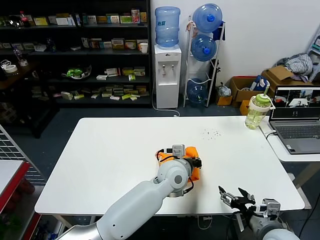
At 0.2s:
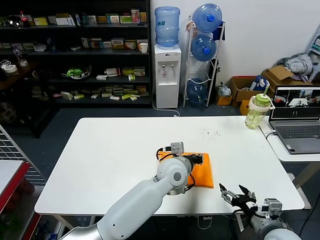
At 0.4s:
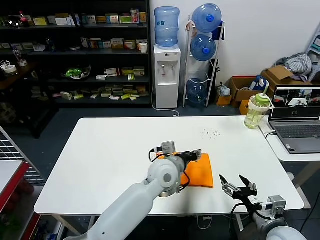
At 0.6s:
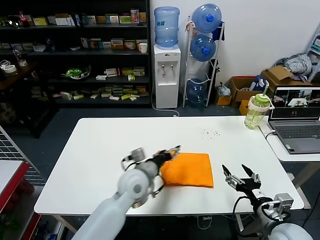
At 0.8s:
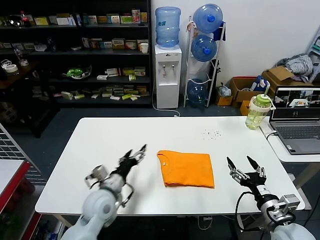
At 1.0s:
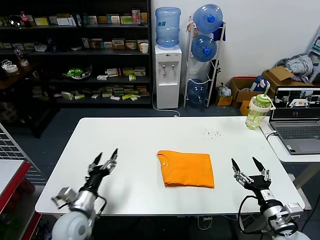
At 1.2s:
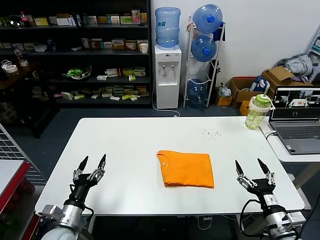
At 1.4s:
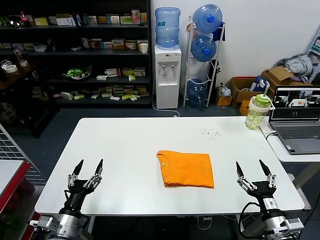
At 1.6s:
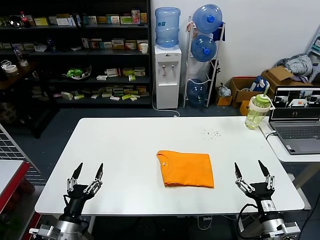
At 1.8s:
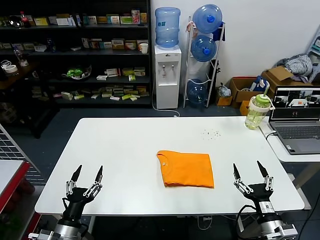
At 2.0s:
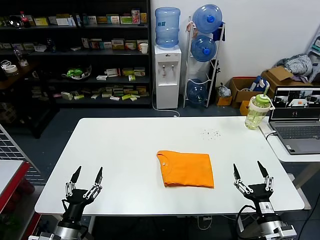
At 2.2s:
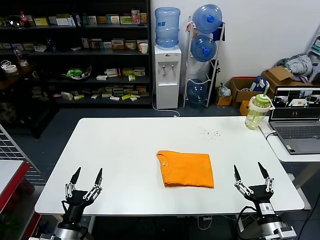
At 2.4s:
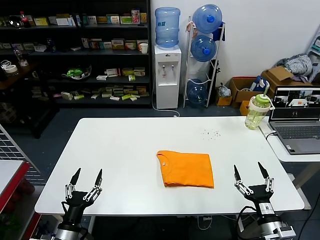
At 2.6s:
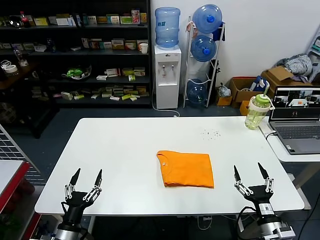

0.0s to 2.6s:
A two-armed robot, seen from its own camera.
Task of the whole recording: fold and organize the clothes.
0.0s to 1.2s: The left gripper shifts approximately 35 cm to the left and backward, and opens its fingers.
1.2s to 2.6s: The left gripper shifts approximately 10 cm backward.

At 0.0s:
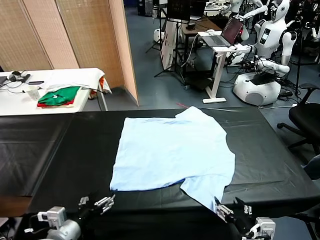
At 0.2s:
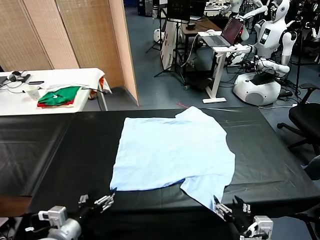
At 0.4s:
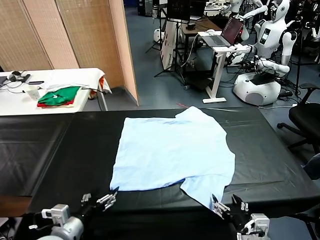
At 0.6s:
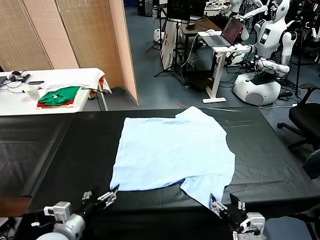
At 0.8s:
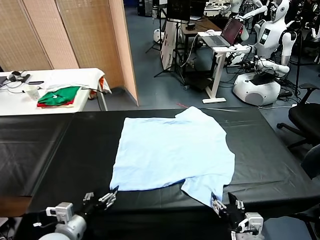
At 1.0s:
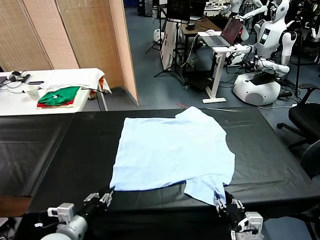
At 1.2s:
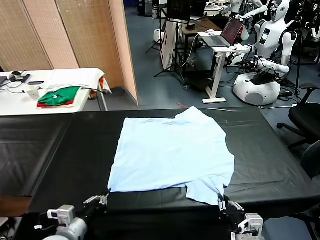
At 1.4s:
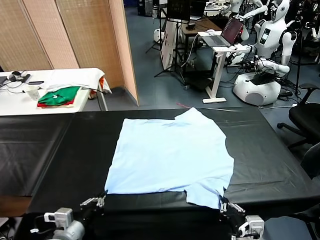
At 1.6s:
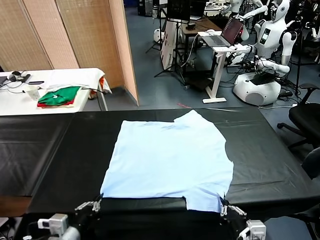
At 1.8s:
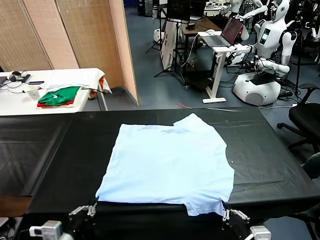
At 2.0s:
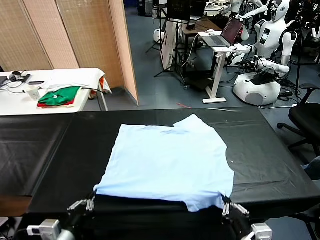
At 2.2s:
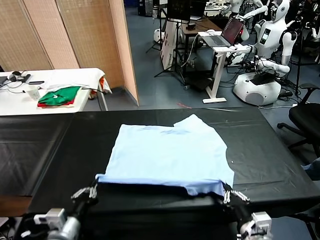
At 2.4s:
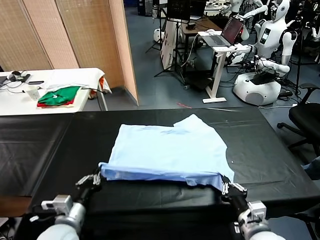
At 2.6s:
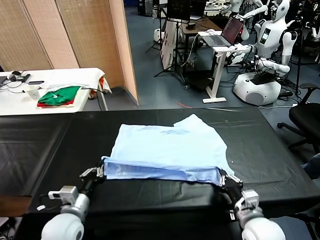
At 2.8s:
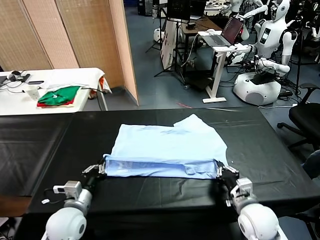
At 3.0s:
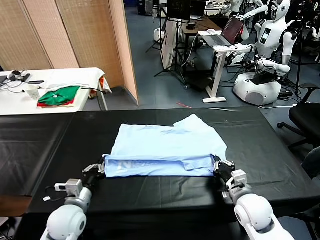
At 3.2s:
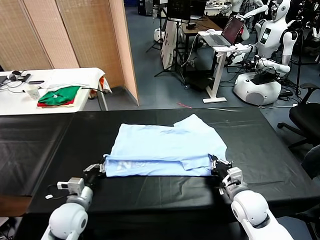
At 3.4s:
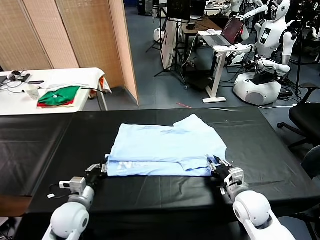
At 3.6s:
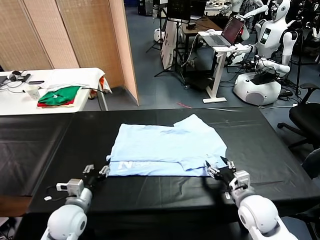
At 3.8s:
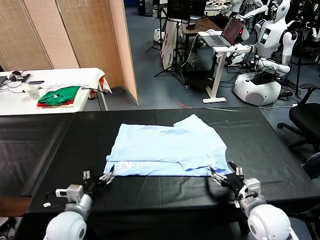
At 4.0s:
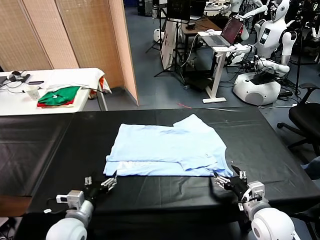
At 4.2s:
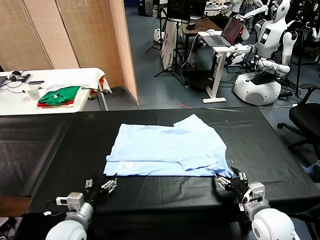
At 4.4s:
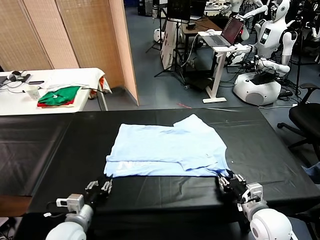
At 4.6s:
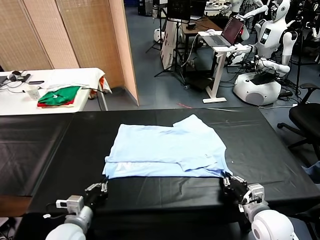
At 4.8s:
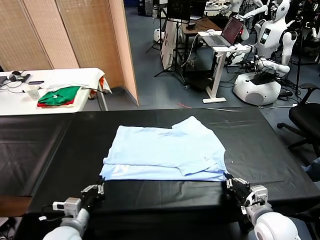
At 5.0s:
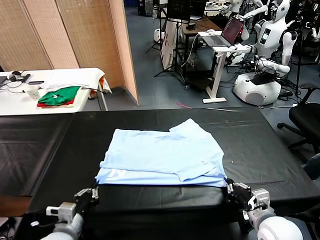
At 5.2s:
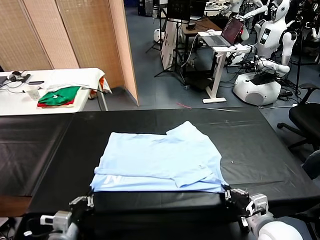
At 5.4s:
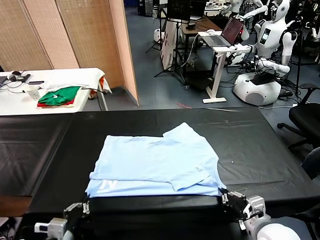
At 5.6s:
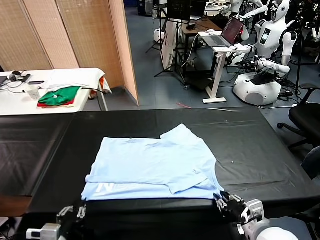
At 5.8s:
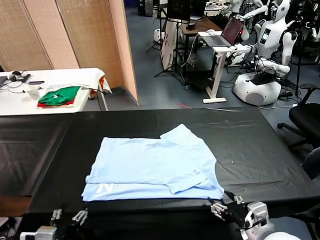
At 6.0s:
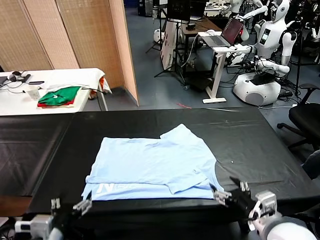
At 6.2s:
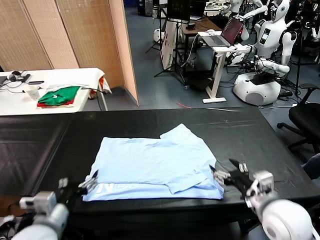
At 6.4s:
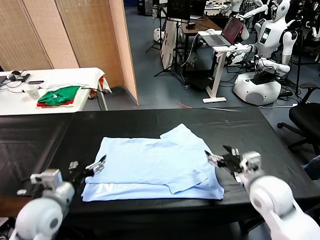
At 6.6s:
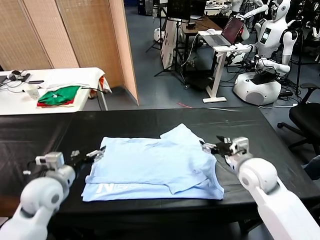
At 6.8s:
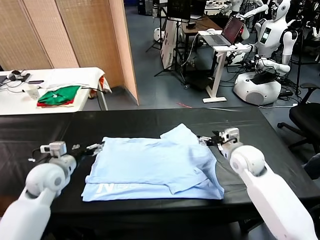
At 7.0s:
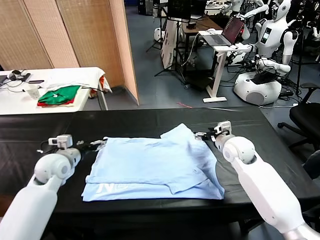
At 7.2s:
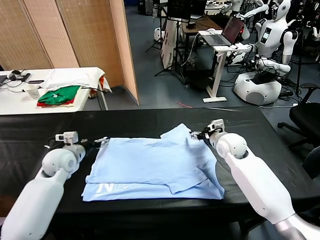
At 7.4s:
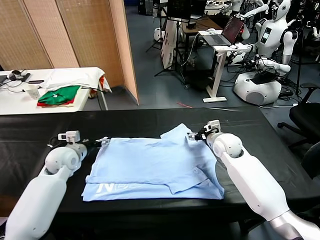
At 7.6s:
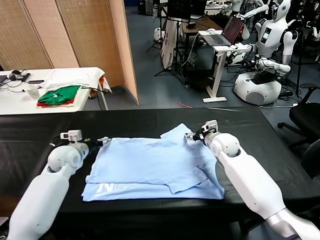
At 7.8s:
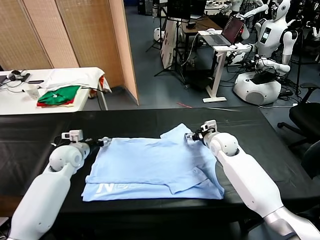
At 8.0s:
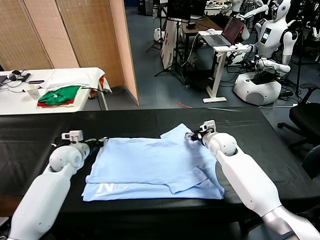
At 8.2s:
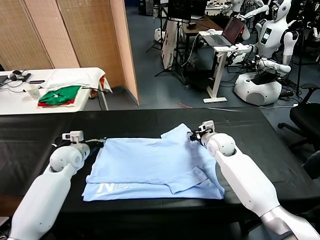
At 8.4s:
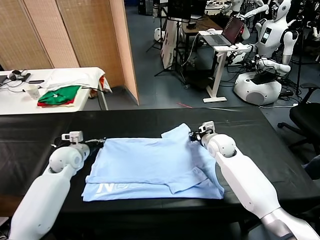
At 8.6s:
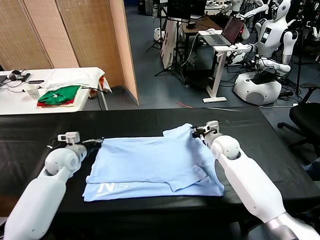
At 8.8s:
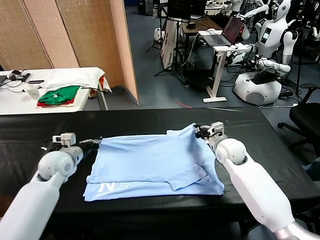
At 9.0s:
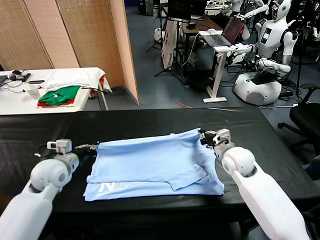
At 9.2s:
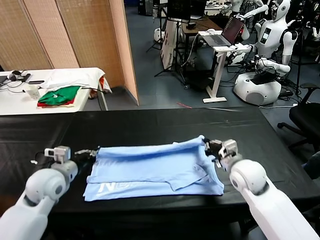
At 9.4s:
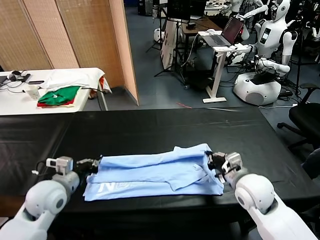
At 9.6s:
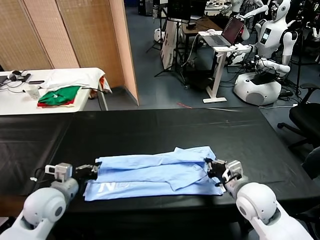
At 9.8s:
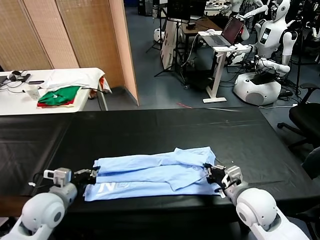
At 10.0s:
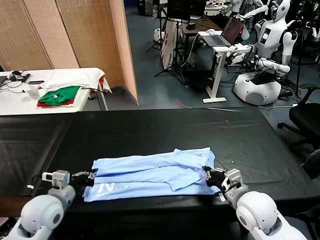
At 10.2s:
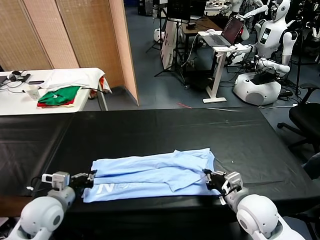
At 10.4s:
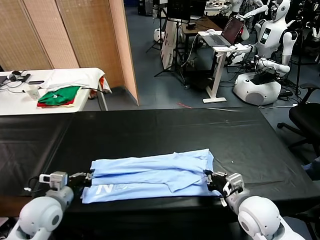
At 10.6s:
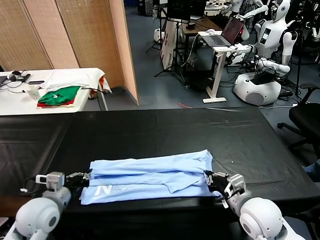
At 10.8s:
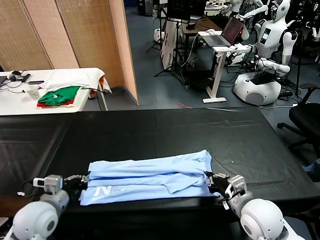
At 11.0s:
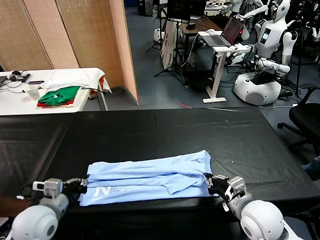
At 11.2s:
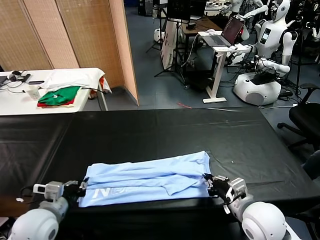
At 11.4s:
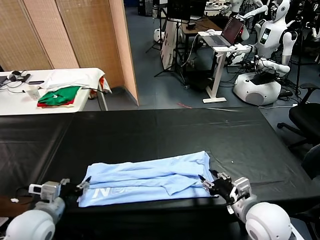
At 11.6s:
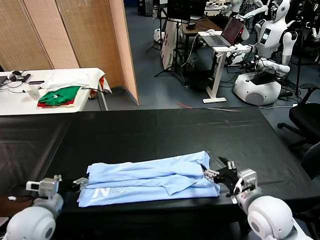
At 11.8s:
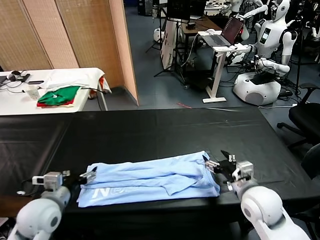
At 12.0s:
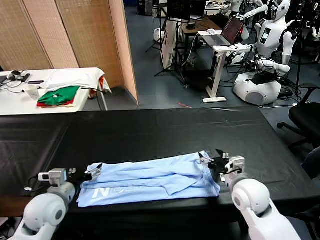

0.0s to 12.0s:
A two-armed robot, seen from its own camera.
Task of the whole recording: fold and organize the clothes.
Step, 0.0s to 1.0s: use both grippers simultaneously to clamp the lower edge of the clothing fabric.
Step, 1.4s to 3.4s: use both grippers to drag the lower edge of the fabric forward and fold it over the upper edge.
Step, 3.6s to 5.6s: Drag the clothes downward with both gripper.
Step, 5.8s to 8.2s: use both grippers simultaneously to clamp the upper edge of the clothing fabric.
Step, 8.4s to 11.4s: use both grippers to drag the upper edge of the fabric backward and fold it over the lower edge.
1.6s to 3.0s: Both grippers move forward, roughly 15 cm.
3.0s to 4.4s: Both grippers move backward, approximately 5 cm. The left gripper opens and closes again. The right gripper opens, then closes once more.
4.4s to 6.0s: Both grippers travel together upward, about 10 cm. The right gripper opens. The left gripper opens its fingers.
6.0s to 7.6s: The grippers both shift forward by about 25 cm.
7.6s to 9.0s: Both grippers move backward, some 15 cm. The left gripper closes, while the right gripper closes up.
9.0s to 10.4s: Both grippers travel together backward, some 10 cm.
10.4s to 12.0s: The left gripper opens its fingers, while the right gripper goes some 10 cm forward, and opens its fingers.

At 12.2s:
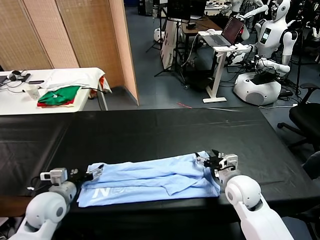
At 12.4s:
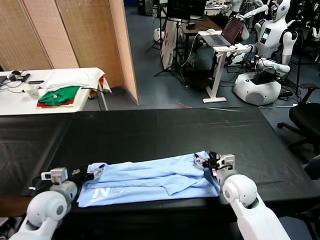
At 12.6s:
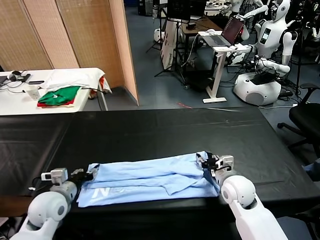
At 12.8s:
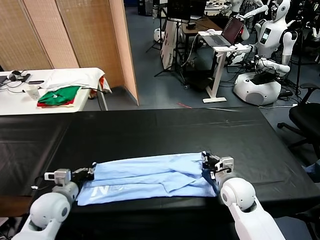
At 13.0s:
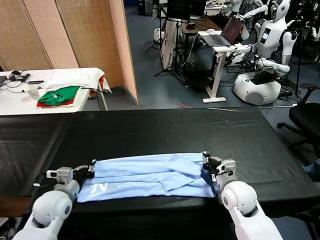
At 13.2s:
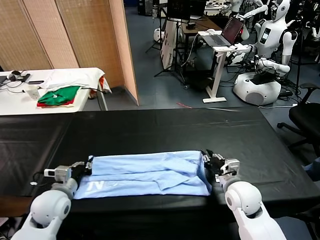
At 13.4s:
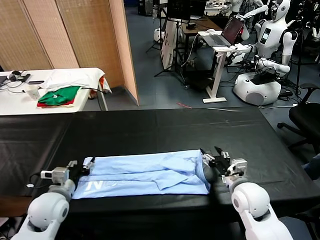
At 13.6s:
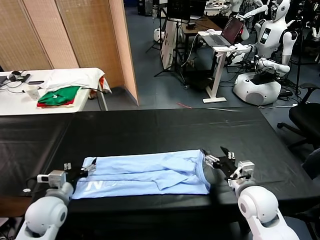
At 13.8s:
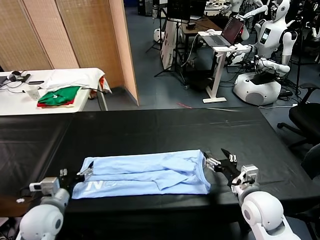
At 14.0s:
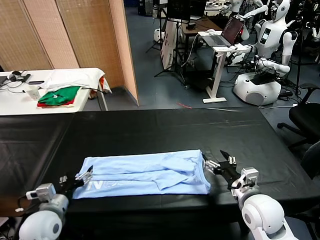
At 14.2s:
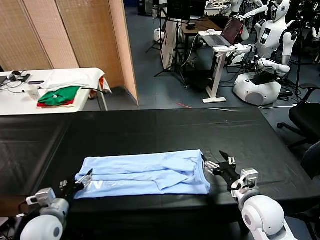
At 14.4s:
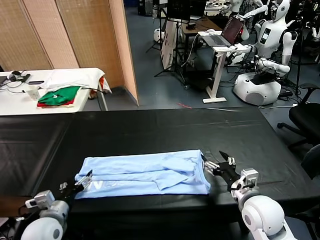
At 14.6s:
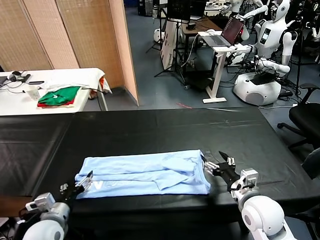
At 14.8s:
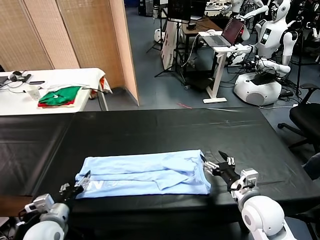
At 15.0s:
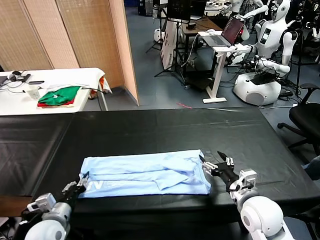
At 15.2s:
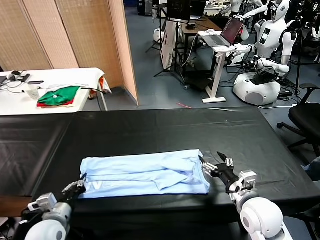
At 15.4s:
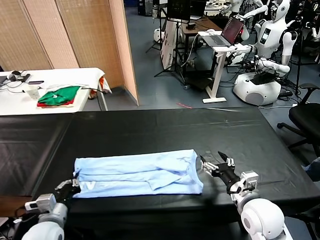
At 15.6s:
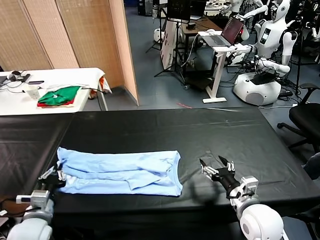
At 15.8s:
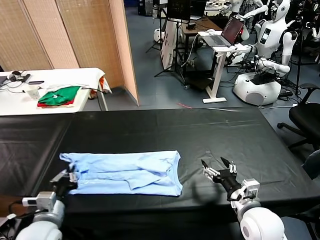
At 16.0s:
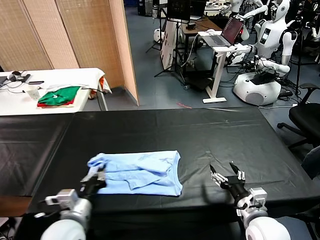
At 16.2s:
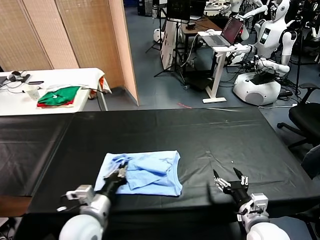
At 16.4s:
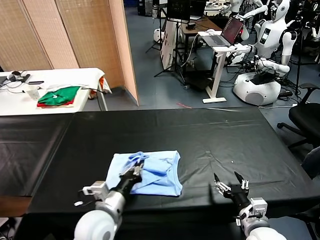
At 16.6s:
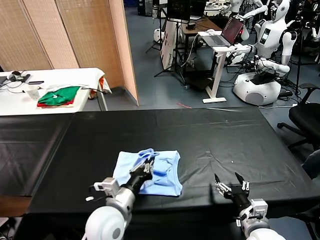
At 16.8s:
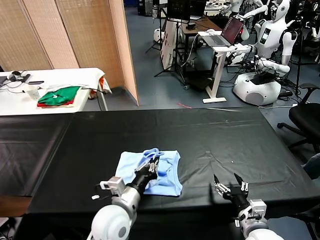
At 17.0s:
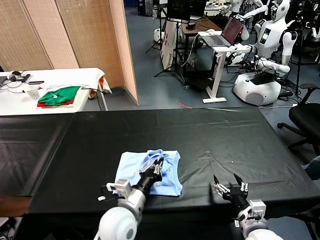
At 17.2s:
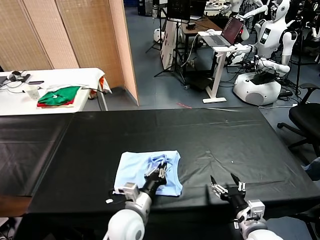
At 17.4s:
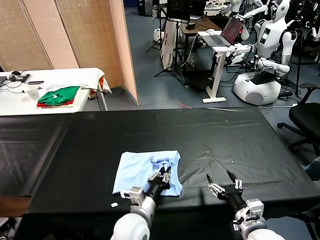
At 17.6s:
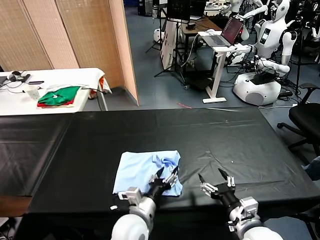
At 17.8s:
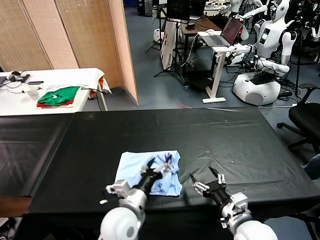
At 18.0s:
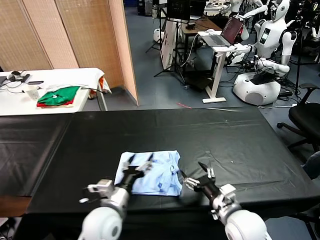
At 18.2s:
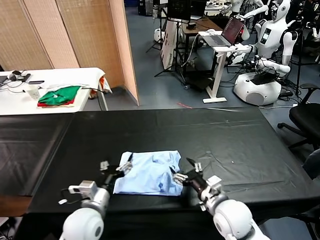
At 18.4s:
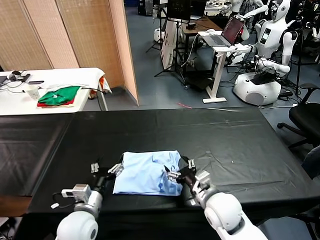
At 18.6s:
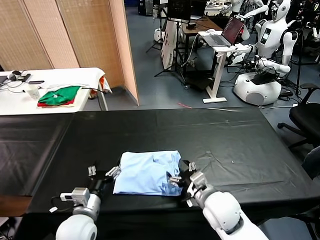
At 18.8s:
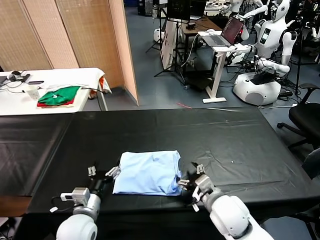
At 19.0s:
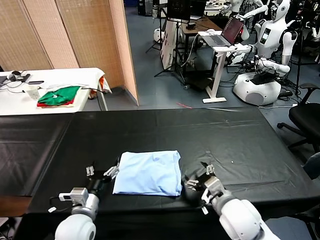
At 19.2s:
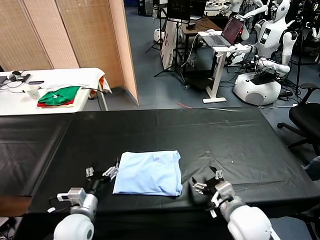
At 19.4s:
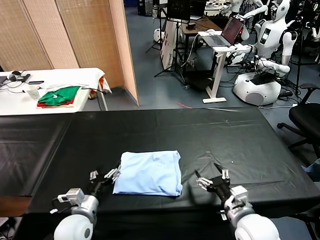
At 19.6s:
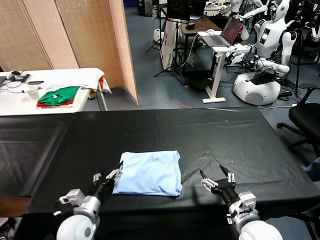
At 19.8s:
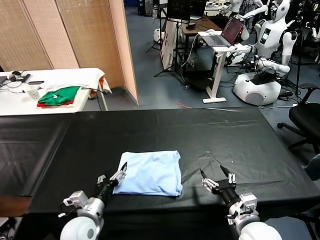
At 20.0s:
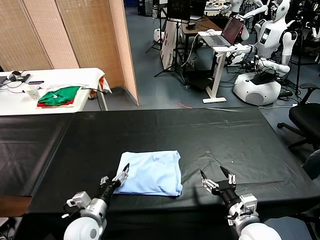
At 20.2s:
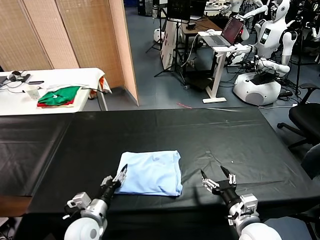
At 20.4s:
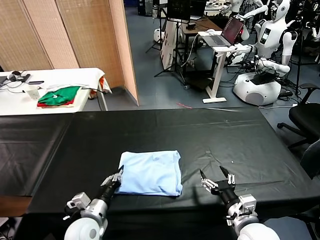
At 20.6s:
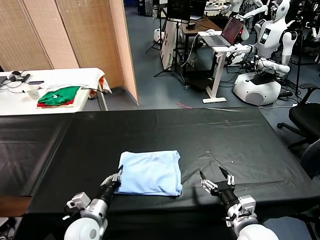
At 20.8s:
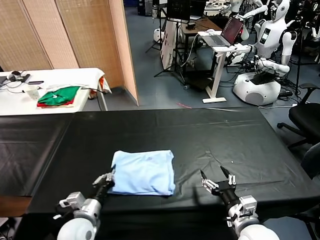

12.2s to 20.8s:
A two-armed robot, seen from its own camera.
Task of the whole recording: fold and organize the clothes.
Step, 12.2s to 15.0s: use the left gripper to clamp the left edge of the fabric.
Step, 15.4s to 17.6s: use the left gripper to drag the left edge of the fabric to the left and folds it over the right edge.
12.2s to 13.6s: The right gripper travels backward by roughly 10 cm, and closes, then reopens. Meanwhile the left gripper closes and opens again.
13.6s to 15.0s: The left gripper closes.
15.0s to 16.6s: The left gripper shifts roughly 15 cm to the right. Meanwhile the right gripper shifts roughly 5 cm backward.
16.6s to 18.0s: The right gripper moves about 5 cm, while the left gripper opens.
18.0s to 19.4s: The left gripper moves to the left, some 10 cm.
19.4s to 20.8s: The left gripper closes.
